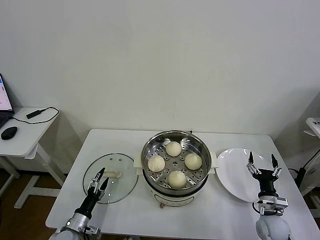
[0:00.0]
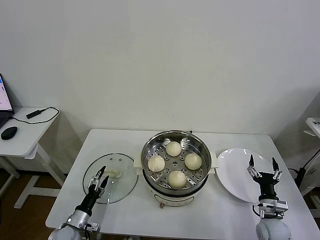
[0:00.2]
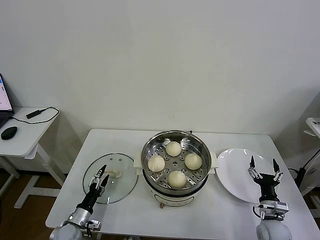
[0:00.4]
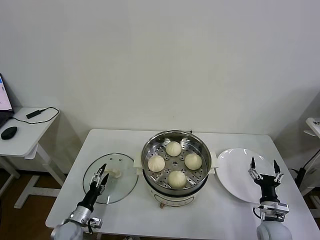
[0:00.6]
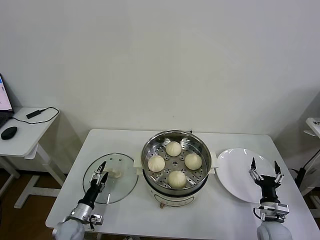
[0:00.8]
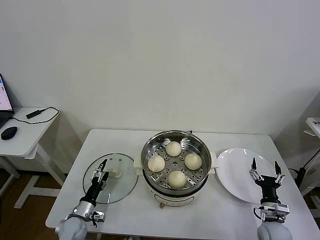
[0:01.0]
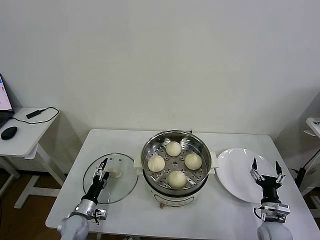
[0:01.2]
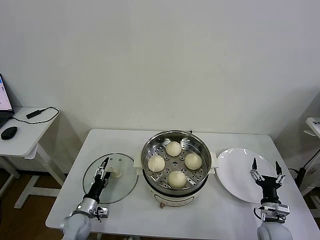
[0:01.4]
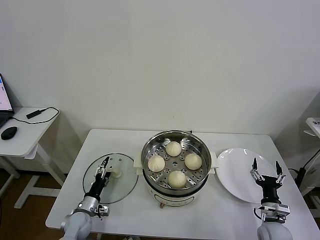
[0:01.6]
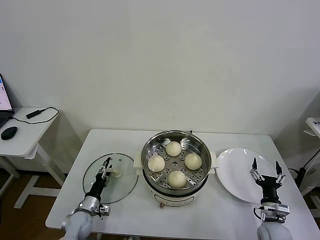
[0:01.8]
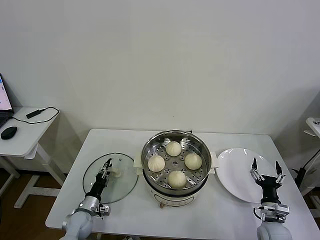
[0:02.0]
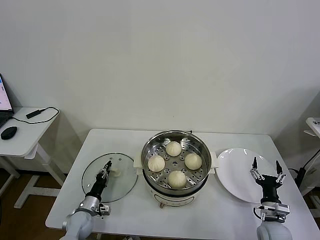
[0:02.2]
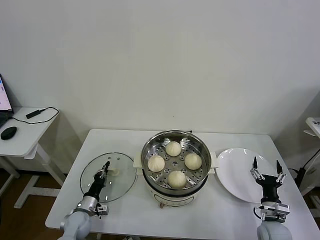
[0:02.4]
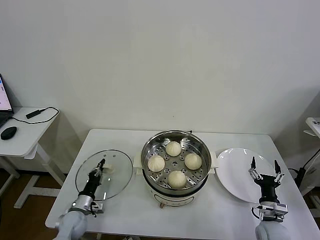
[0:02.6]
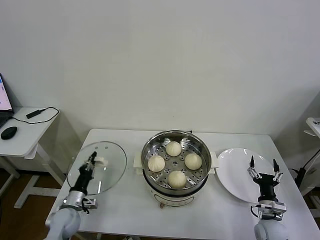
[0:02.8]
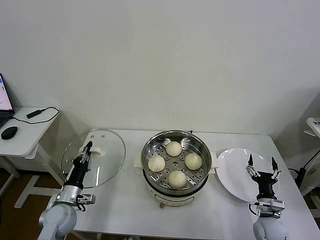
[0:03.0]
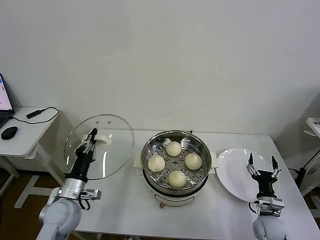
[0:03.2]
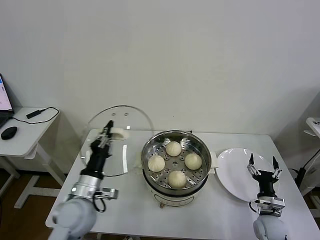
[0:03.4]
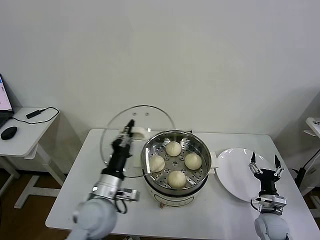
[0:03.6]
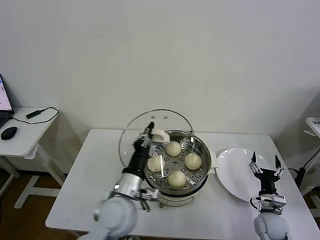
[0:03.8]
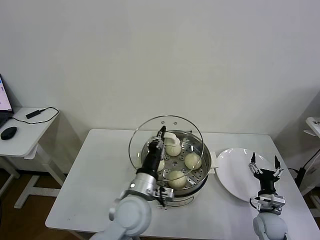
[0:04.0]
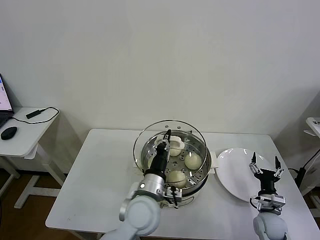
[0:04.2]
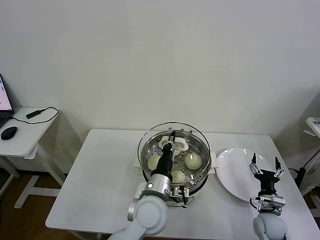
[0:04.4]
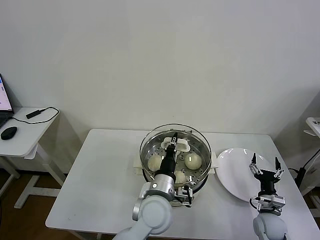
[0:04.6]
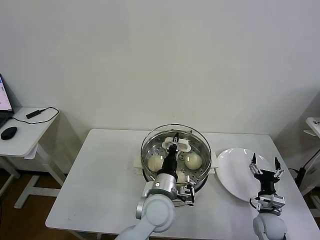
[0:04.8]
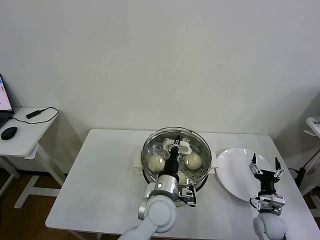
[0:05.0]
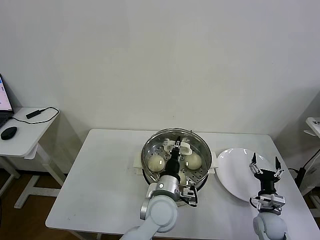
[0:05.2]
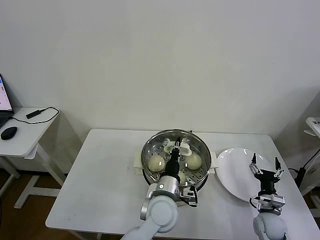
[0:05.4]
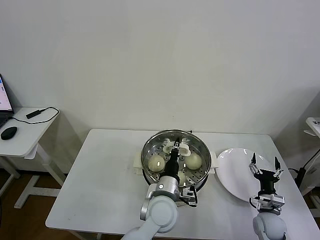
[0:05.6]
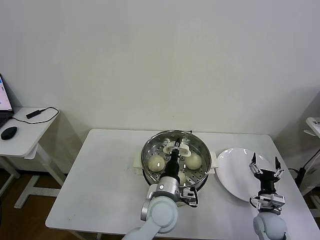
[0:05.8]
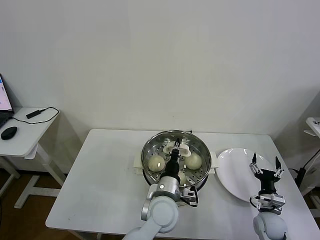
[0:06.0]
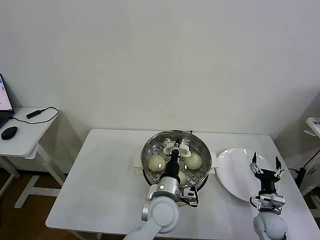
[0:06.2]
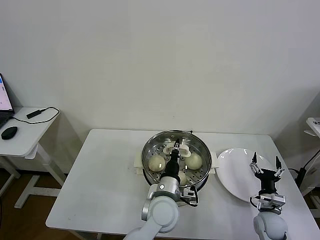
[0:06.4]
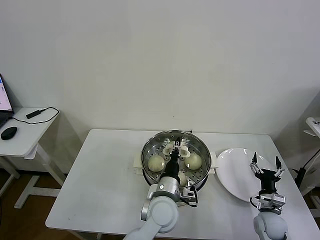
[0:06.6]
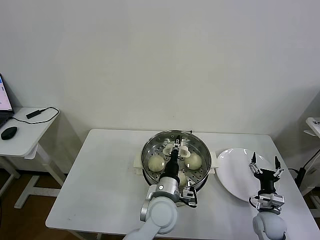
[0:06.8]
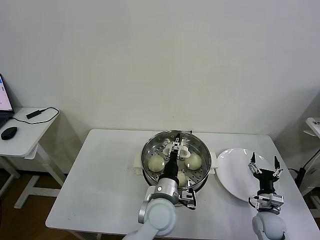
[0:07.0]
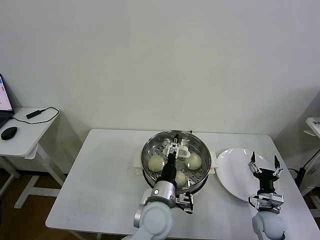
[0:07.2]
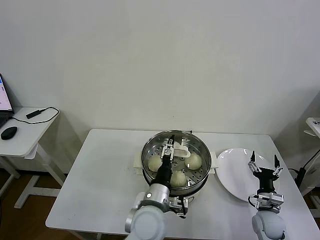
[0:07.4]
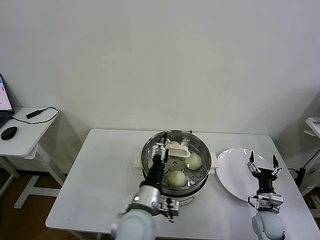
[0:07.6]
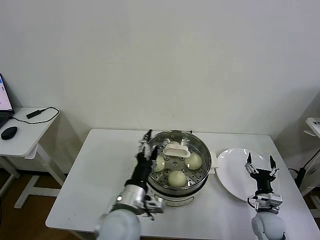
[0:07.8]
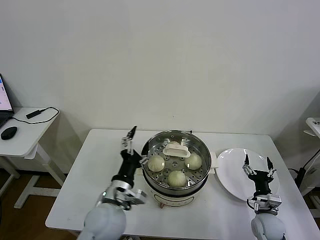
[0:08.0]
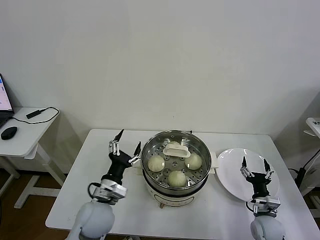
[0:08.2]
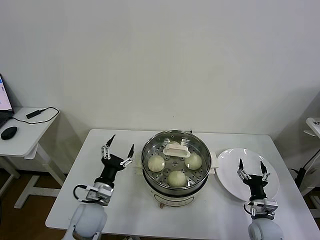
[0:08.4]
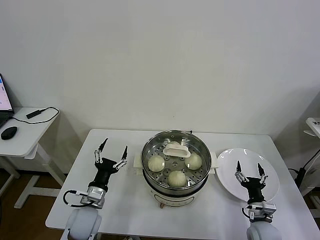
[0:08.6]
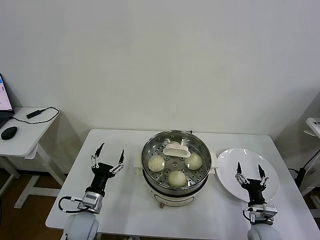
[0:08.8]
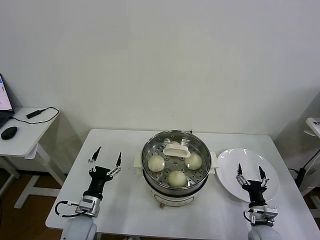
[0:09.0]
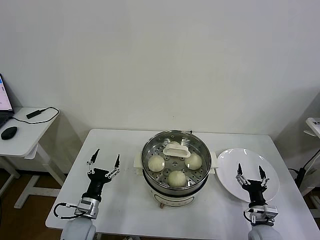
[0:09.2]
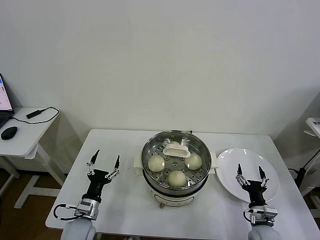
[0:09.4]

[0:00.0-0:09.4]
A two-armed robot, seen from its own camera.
Task of the whole recording: take steamed baozi put them in steamer then cover it.
Step, 0:00.0 to 0:02.4: Grasp the pot lid with left gripper.
Step, 0:02.6 to 0:06.8: Place the pot lid on the steamer with left gripper.
0:00.0 to 0:01.6: The left gripper travels forward by roughly 5 cm.
0:01.6 to 0:03.2: The left gripper shifts about 15 cm upward, and closes up.
0:03.2 to 0:04.8: The left gripper shifts approximately 30 cm to the right.
0:04.8 to 0:06.2: The grippers move only a little.
0:06.2 to 0:07.8: The left gripper goes roughly 10 cm to the left, backward and upward, and opens.
0:07.8 to 0:09.4: The left gripper moves to the left and downward, some 25 cm.
